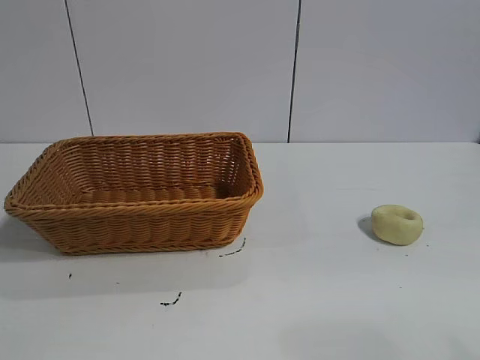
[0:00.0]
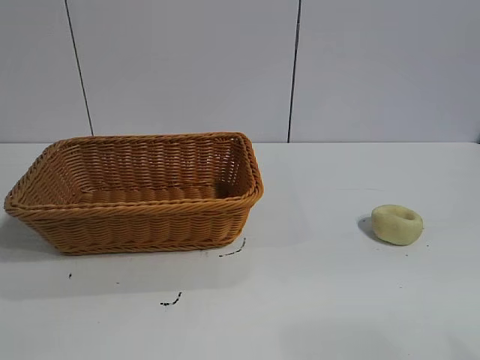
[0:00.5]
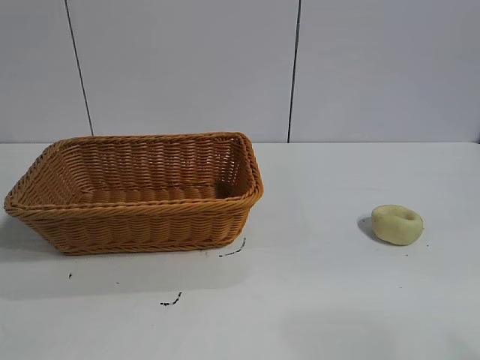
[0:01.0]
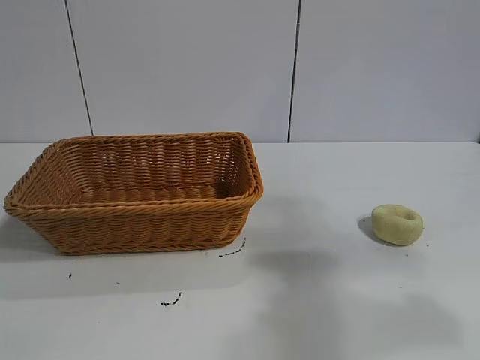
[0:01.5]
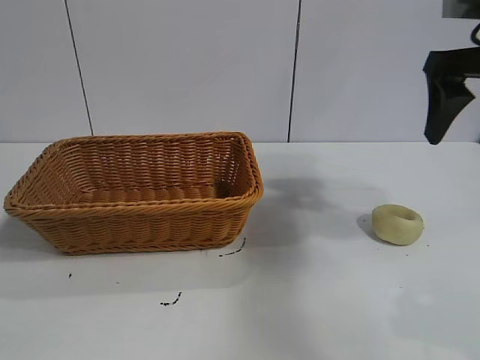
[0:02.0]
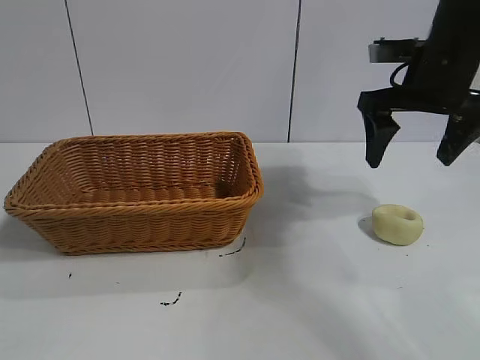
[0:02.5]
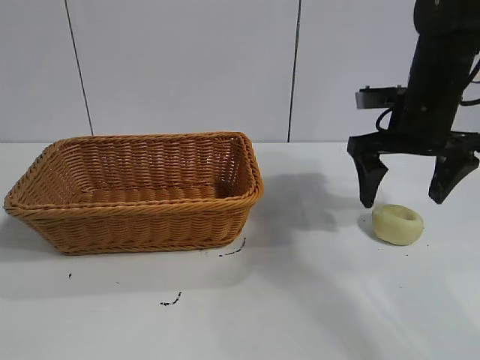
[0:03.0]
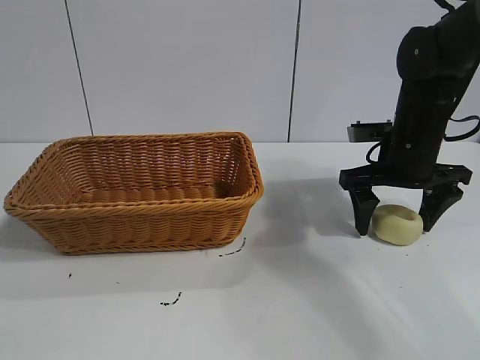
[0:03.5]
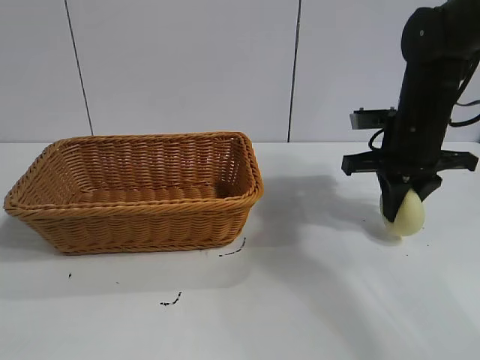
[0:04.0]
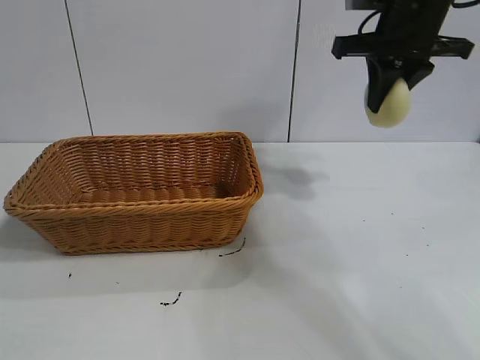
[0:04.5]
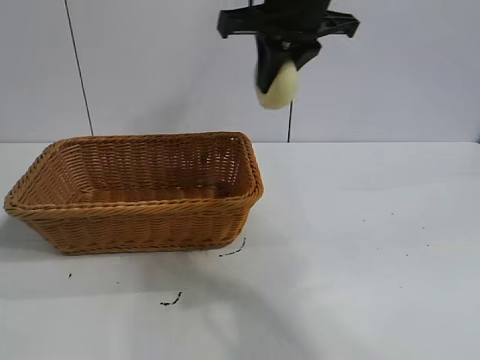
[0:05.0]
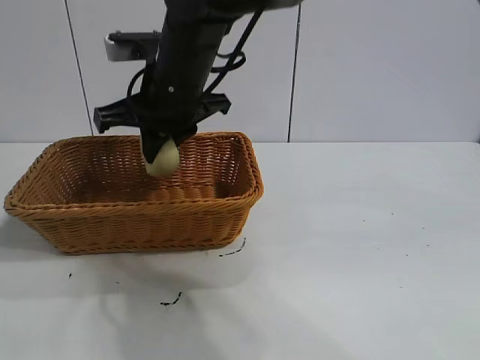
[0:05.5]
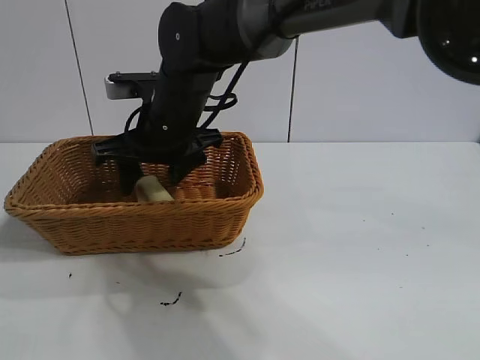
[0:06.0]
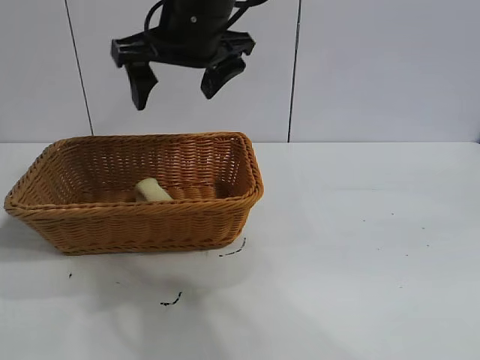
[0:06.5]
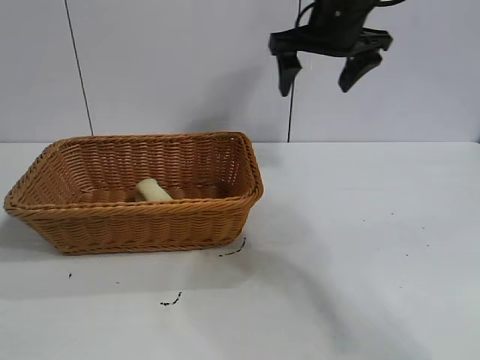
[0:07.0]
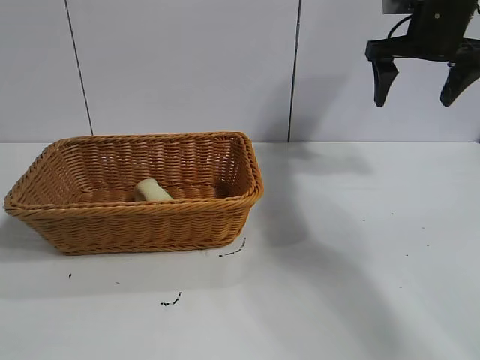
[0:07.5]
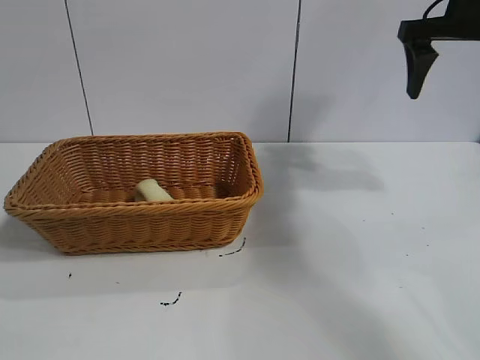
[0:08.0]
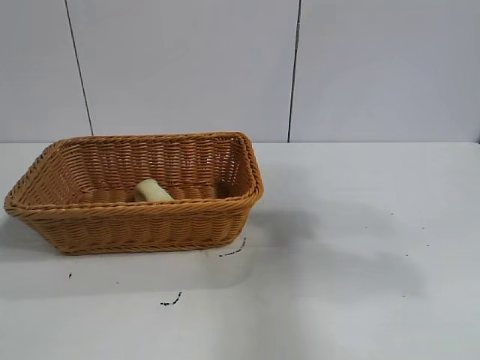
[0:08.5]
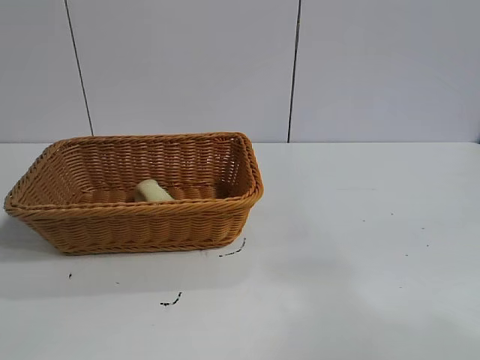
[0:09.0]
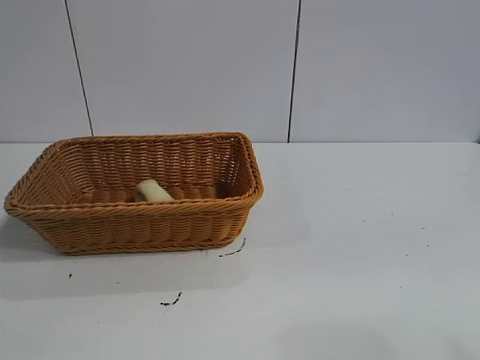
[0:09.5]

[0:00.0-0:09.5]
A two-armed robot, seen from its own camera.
Task of the whole recording: pick up the egg yolk pastry and put it into the basket.
Step, 0:01.0 to 0:03.5: Grasp egg yolk pastry with right gripper.
Step, 0:04.0 to 0:06.0: Place the egg yolk pastry in the basket with right gripper.

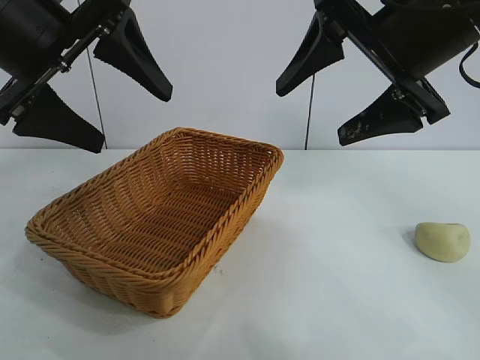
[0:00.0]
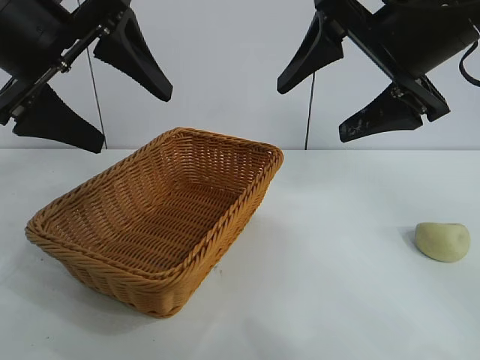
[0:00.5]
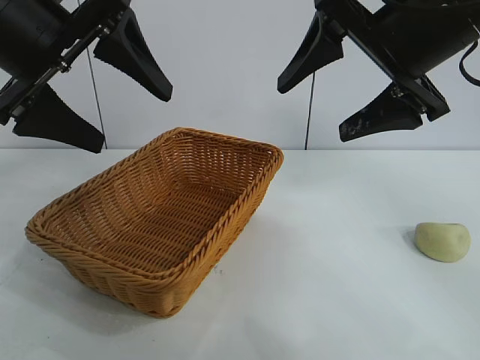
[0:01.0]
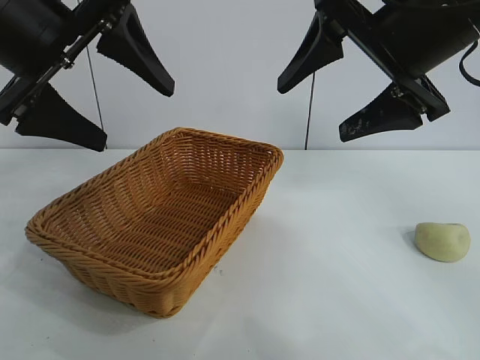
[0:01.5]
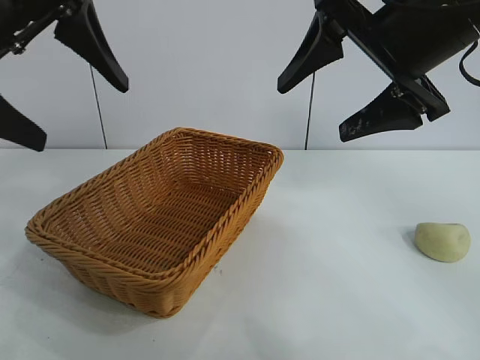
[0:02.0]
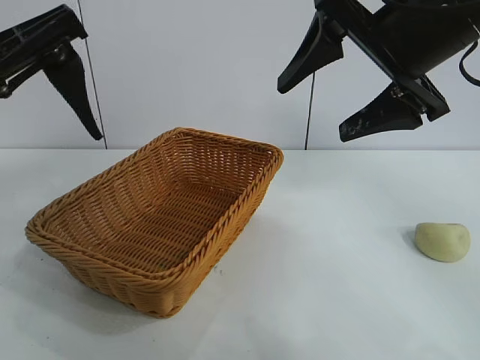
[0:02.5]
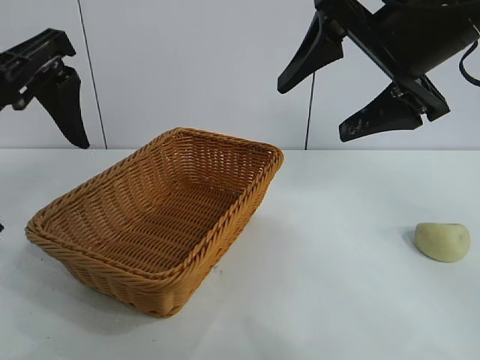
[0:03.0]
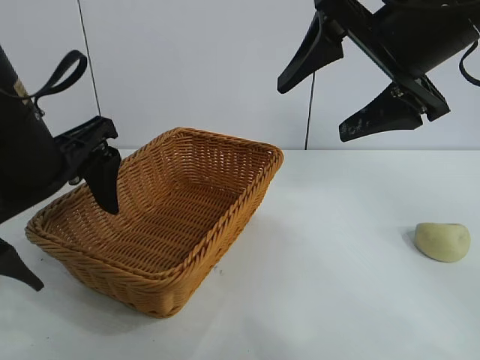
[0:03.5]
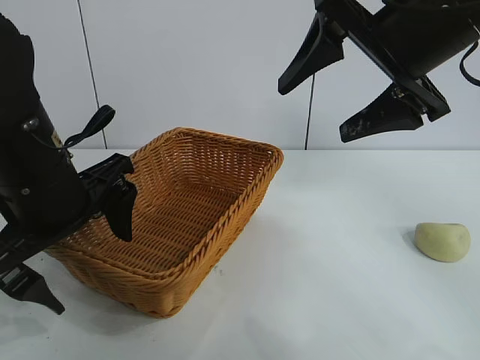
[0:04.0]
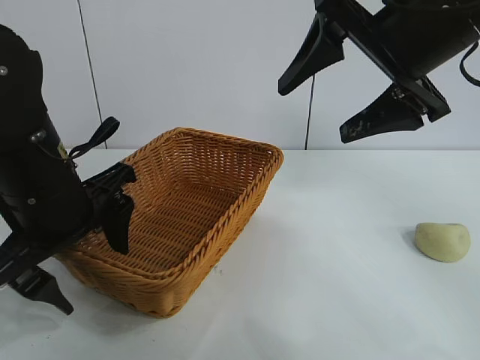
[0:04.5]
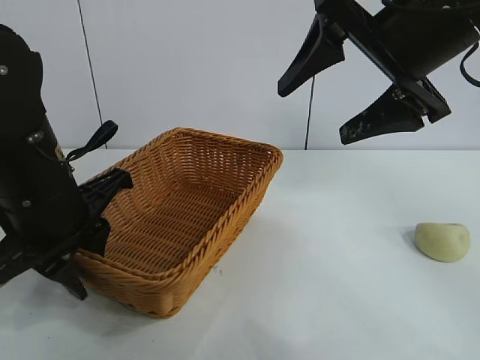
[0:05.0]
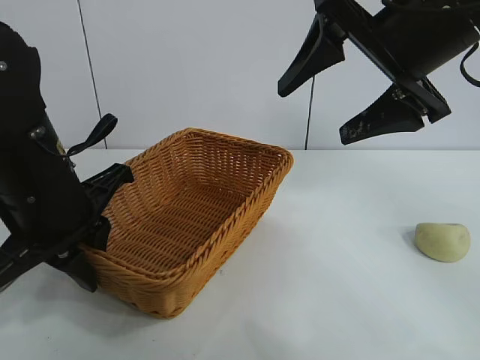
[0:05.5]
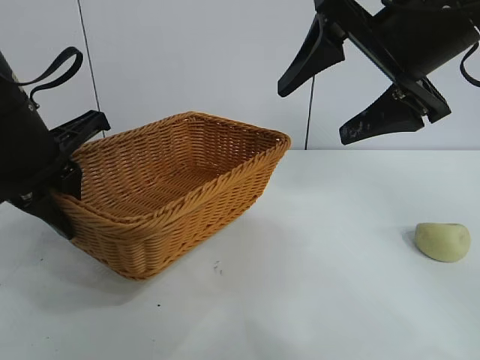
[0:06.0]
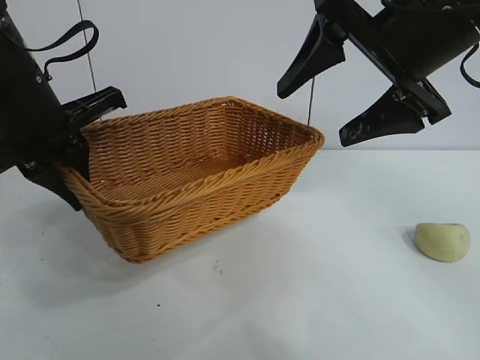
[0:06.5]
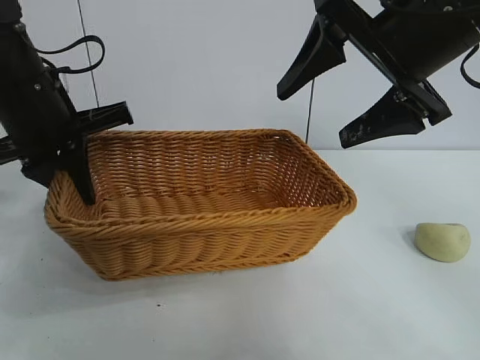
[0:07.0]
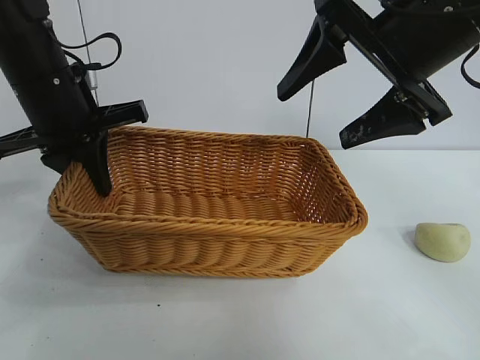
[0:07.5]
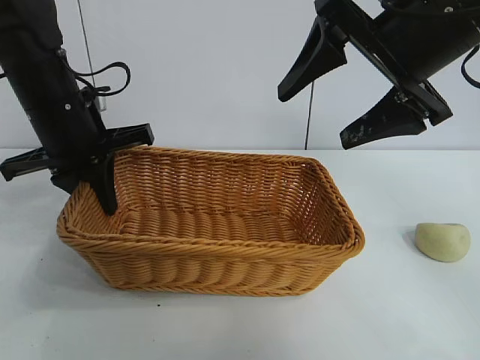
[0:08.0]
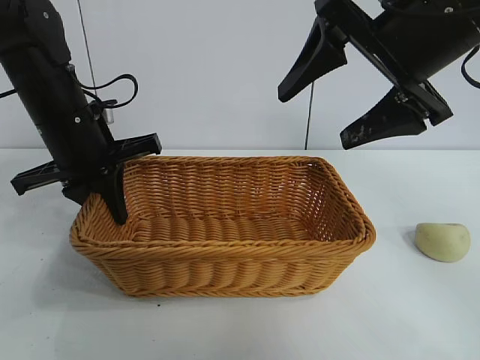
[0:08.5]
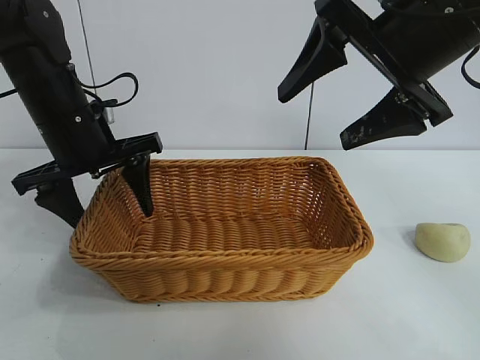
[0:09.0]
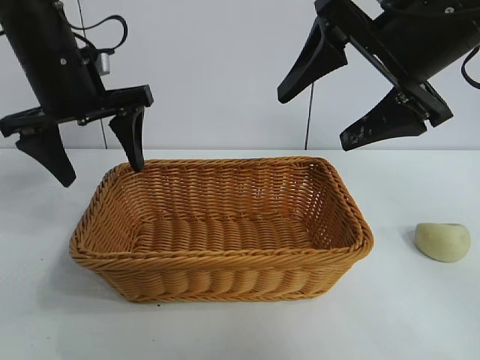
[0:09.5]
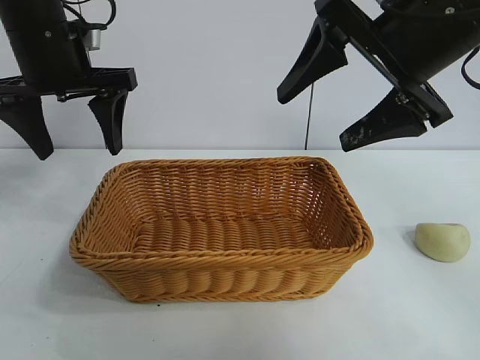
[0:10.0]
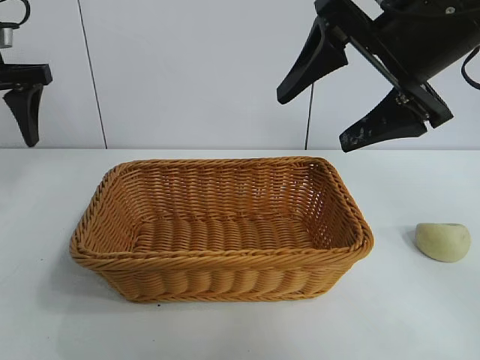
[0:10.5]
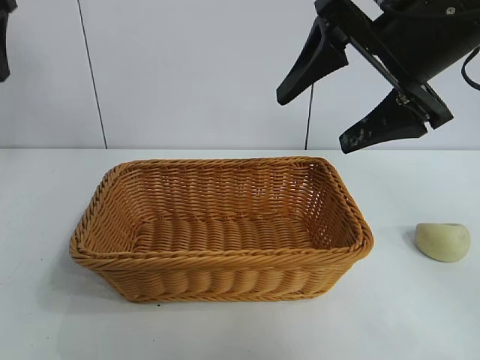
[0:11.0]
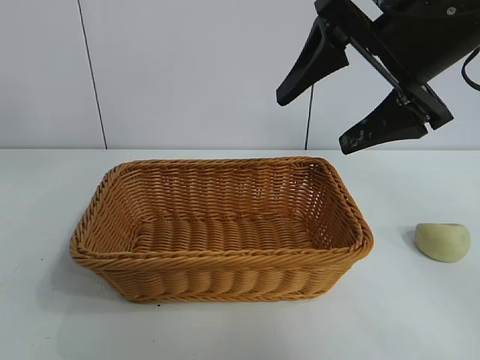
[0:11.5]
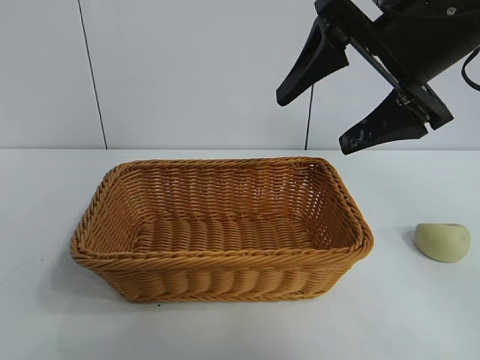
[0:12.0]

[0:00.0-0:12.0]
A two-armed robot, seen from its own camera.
Task of the whole recording: pick up the egg yolk pastry and put it into the basket.
Step, 0:00.0 to 0:05.0: Grasp the basket with left gripper.
Step, 0:05.5 to 0:09.0: Place the basket in the center of view with left gripper.

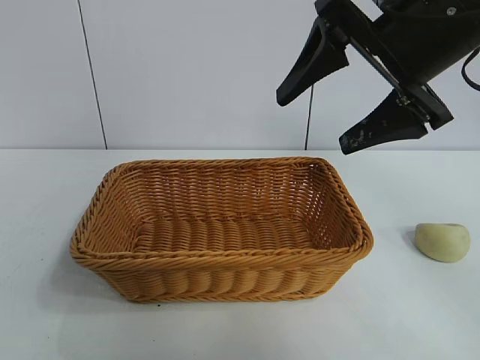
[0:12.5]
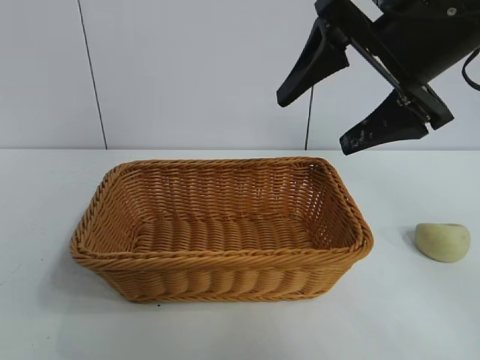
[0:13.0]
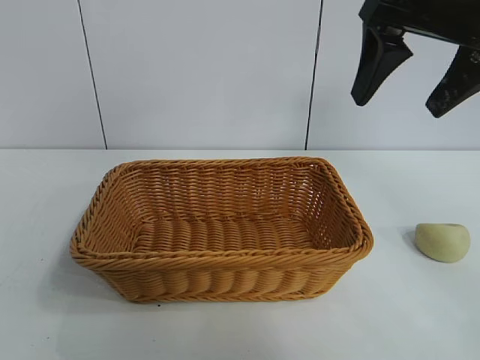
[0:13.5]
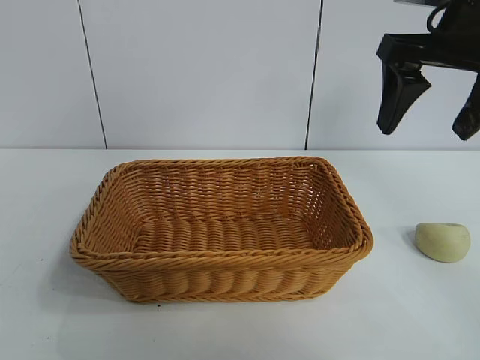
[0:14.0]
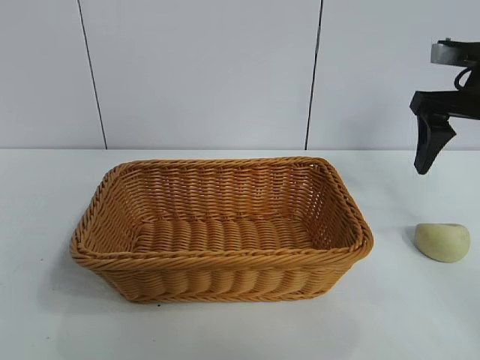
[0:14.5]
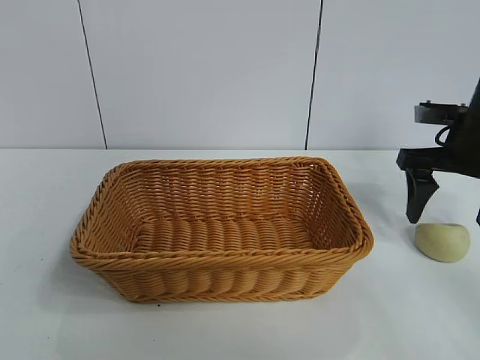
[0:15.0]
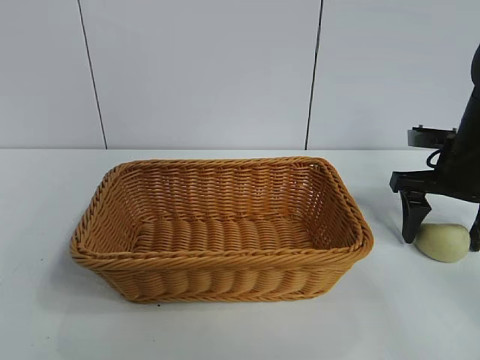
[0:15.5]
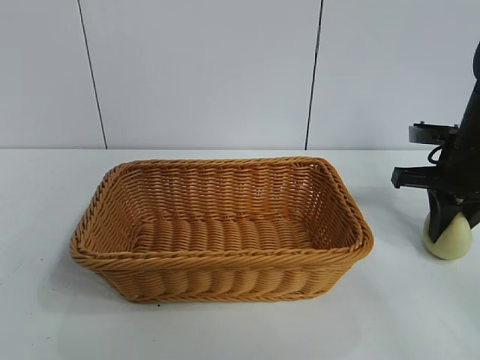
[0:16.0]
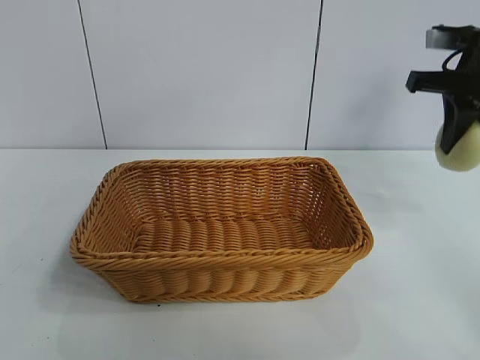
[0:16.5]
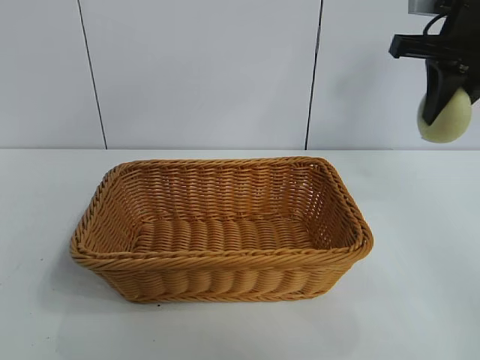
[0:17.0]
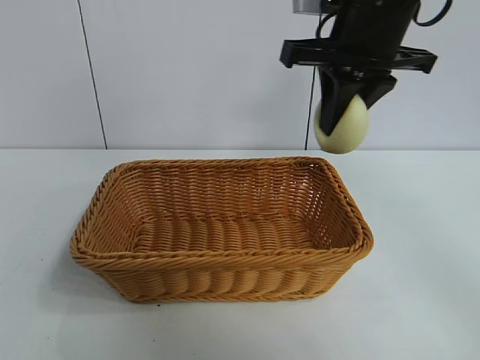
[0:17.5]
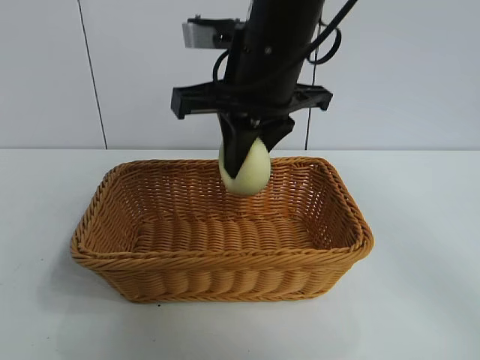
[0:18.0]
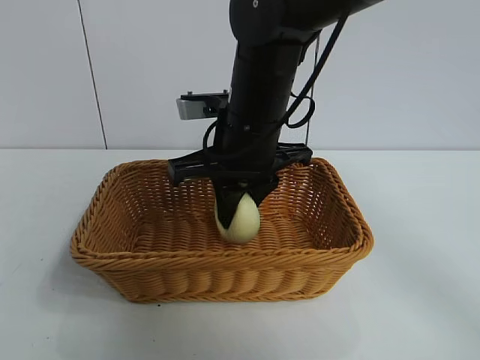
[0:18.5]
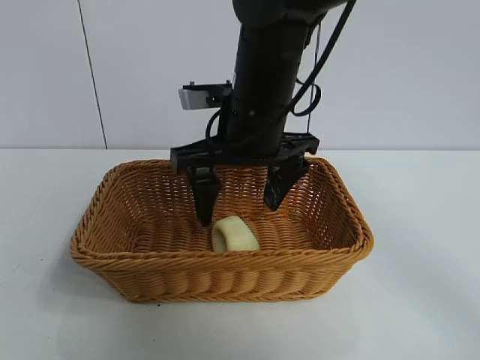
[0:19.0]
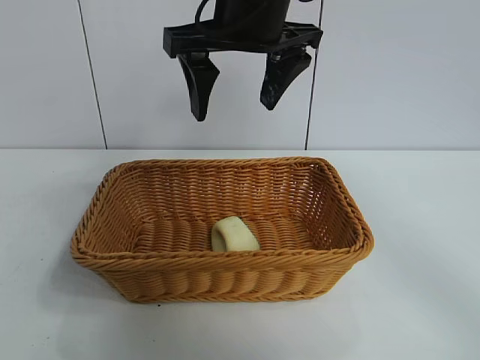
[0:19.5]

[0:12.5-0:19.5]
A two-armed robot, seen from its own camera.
Task of the whole recording: pick up the egg yolk pastry and put it into the basket.
Step, 0:12.5 to 0:15.5: Grasp egg yolk pastry with right gripper.
Step, 0:16.0 to 0:18.5: Place the egg yolk pastry in the basket with right gripper.
